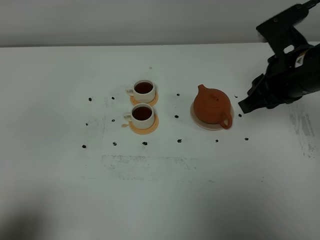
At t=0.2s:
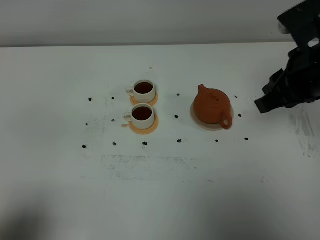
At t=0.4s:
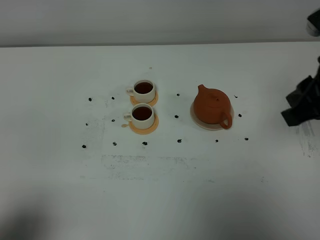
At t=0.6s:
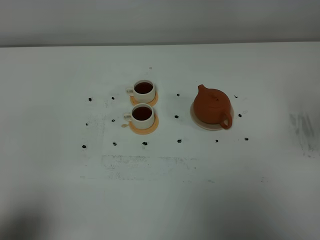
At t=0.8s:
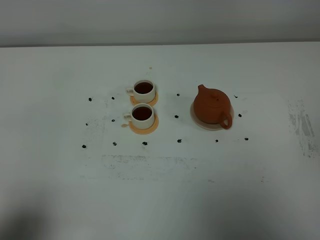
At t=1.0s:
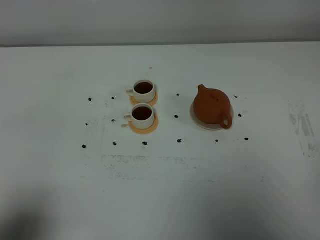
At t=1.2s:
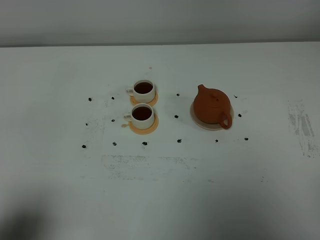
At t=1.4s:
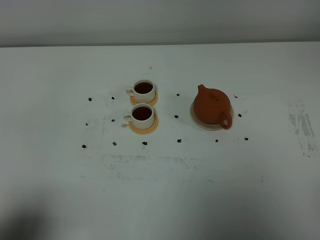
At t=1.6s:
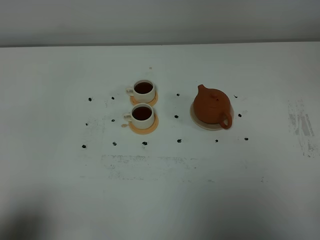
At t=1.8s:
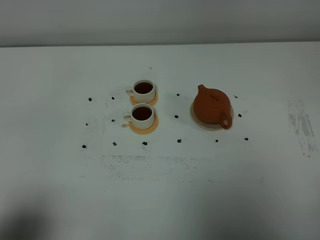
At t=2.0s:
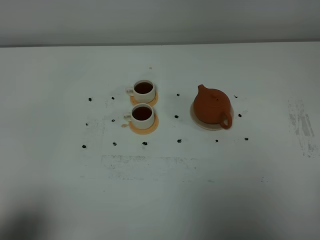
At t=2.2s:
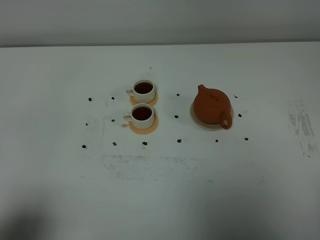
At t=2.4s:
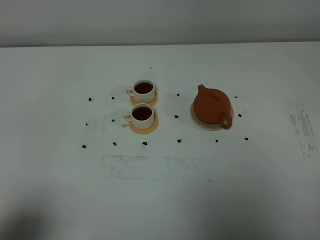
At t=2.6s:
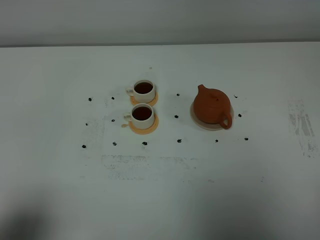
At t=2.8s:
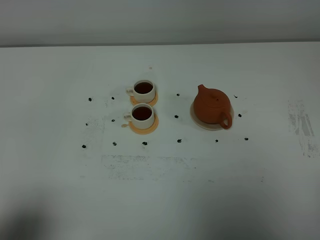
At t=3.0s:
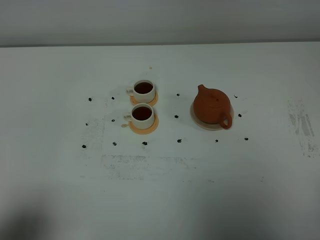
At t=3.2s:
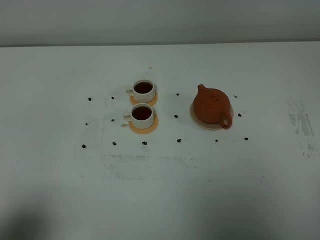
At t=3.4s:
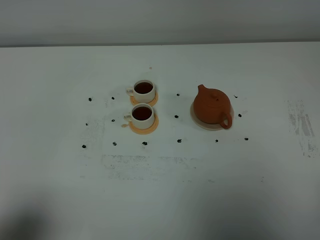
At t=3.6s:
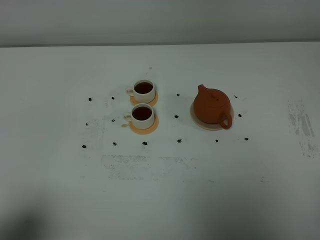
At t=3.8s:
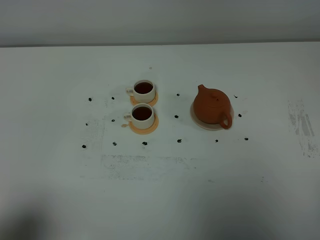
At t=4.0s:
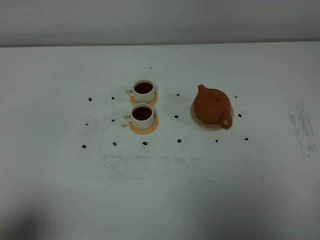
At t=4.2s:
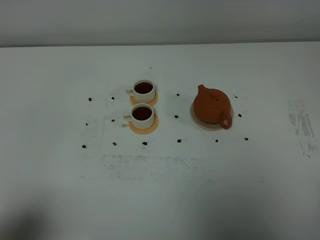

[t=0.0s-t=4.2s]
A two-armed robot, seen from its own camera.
Task of the whole recording: grasp the brown teapot and pour the tea into the two white teacups one by one, put the brown teapot back in its original place.
t=0.0s to t=1.4s: The right gripper shifts some 30 cm backward and to the right.
